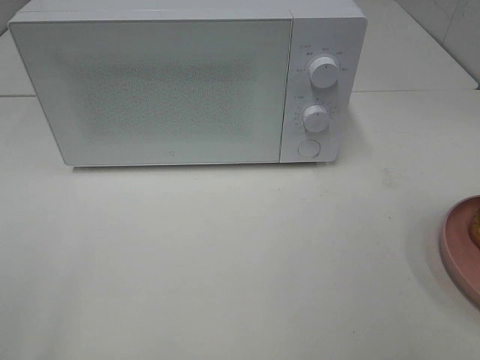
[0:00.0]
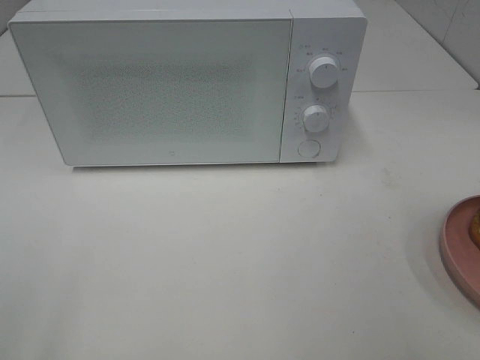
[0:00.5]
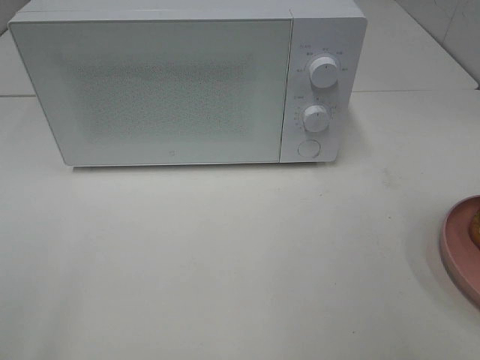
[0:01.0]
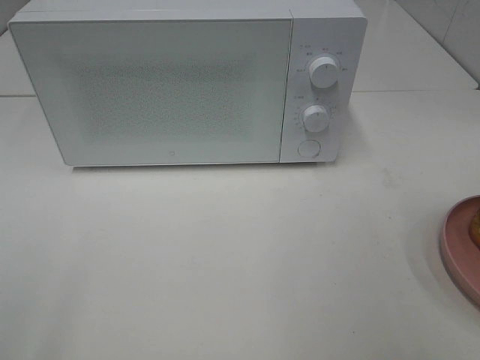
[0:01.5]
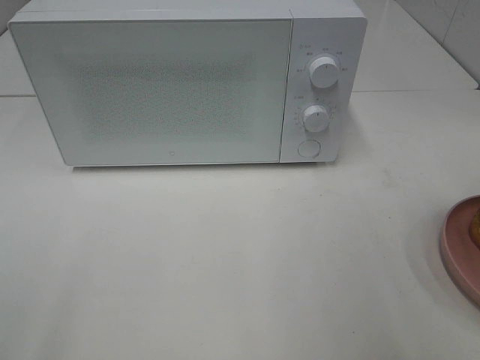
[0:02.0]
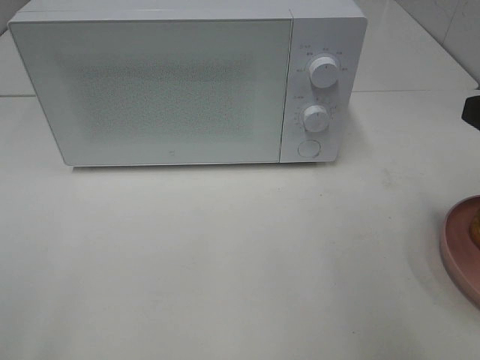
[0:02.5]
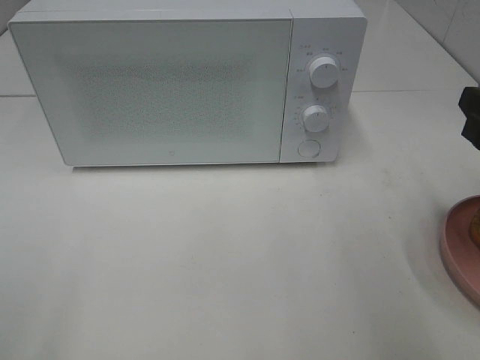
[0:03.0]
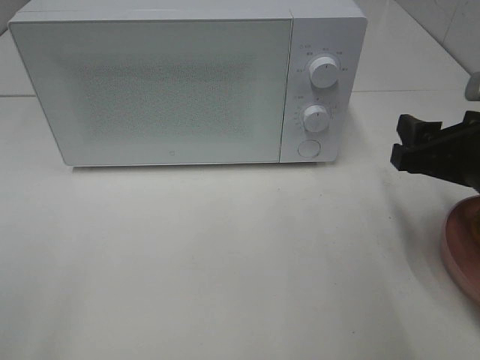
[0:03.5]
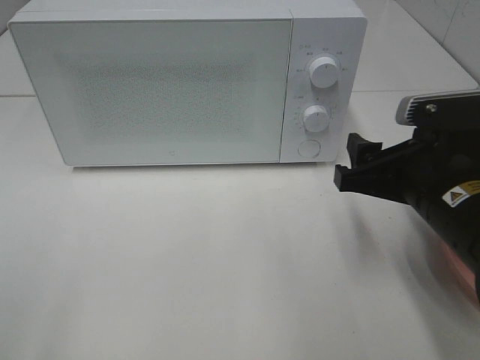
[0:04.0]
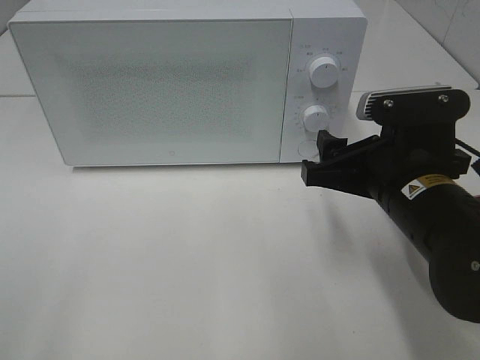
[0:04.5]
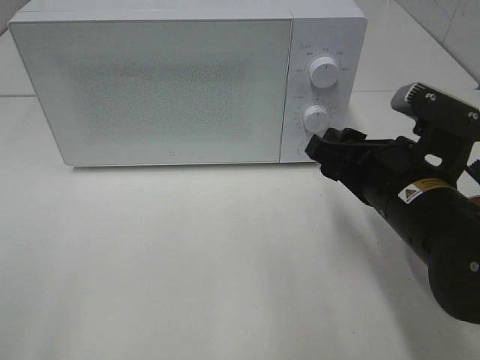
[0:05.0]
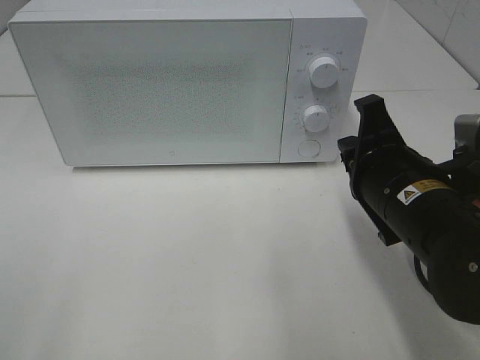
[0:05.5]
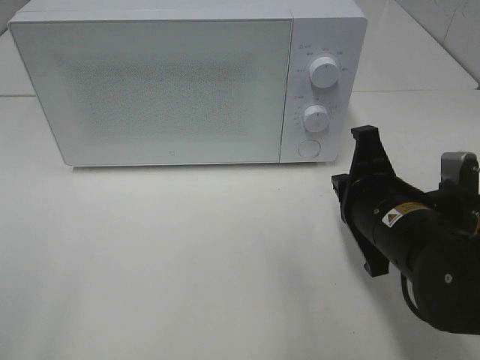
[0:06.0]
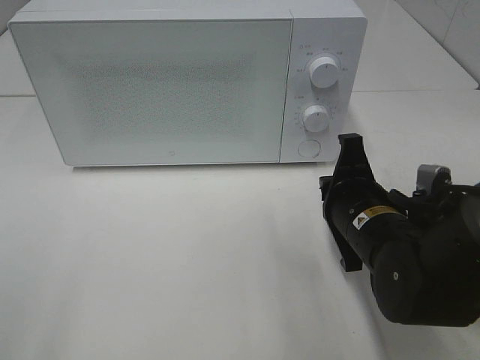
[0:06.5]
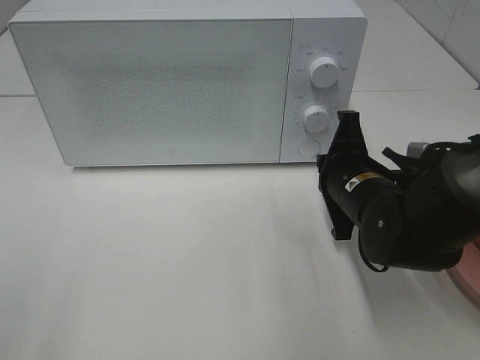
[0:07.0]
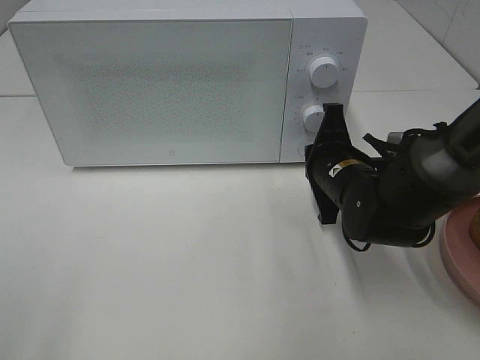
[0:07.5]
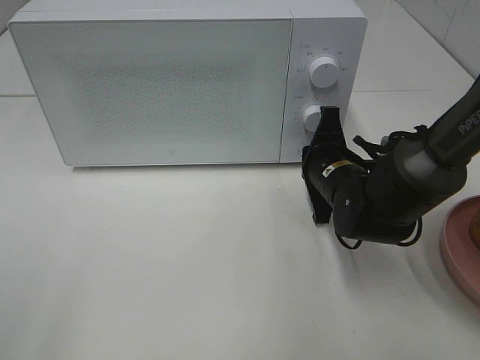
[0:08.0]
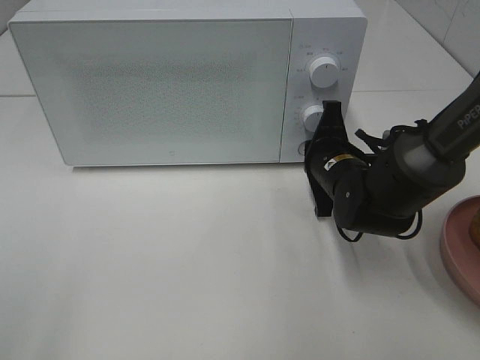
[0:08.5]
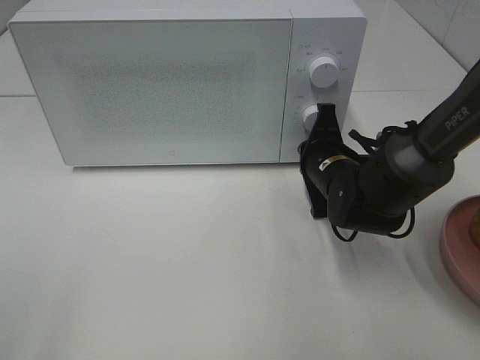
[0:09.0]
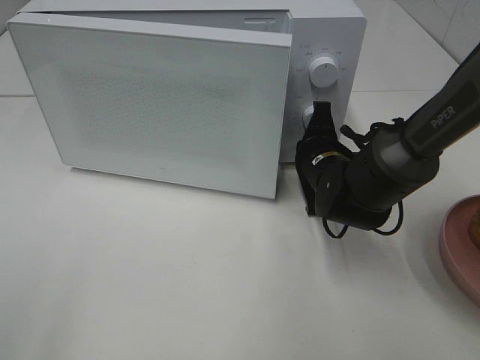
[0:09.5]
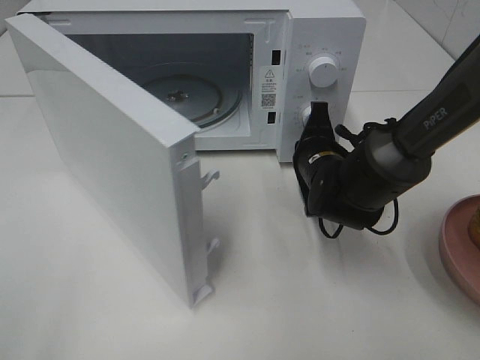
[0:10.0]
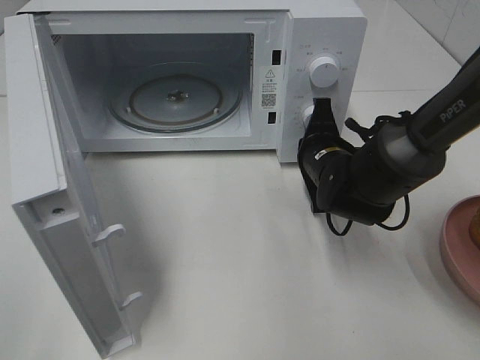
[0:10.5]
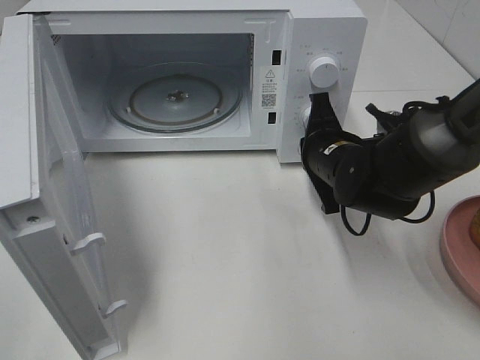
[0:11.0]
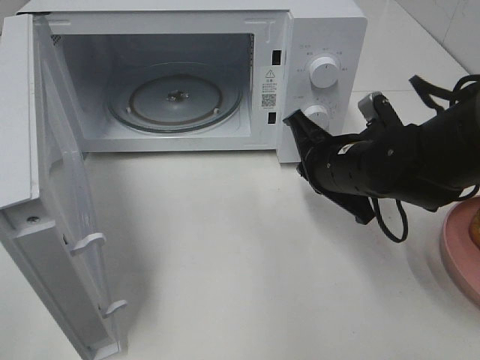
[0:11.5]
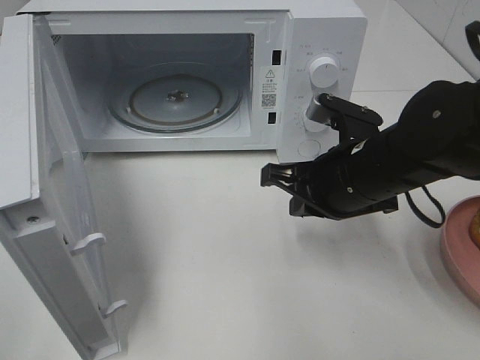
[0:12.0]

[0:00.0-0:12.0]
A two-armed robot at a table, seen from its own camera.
Task of the whole recording: Heat the burger.
Step, 0:00.0 to 0:11.0: Right hand: press the switch.
0:02.0 to 0:04.0: The right gripper heads downward, to the left and forward, covering approximately 20 cm.
0:04.0 to 0:06.0: The right gripper moves about 5 cm, and closes its fingers.
0:06.0 to 0:08.0: The right gripper shifts approximately 10 cm forward and downward.
0:10.0 to 0:12.0: The right gripper goes approximately 10 cm backward and upward.

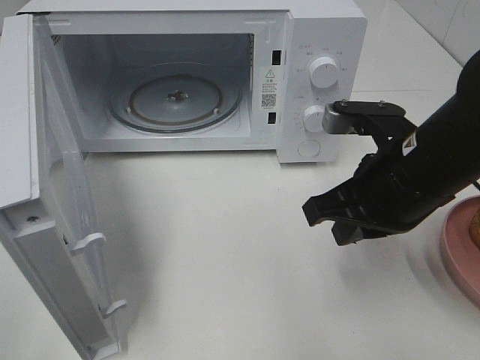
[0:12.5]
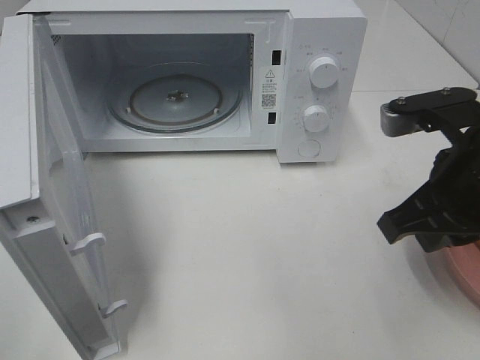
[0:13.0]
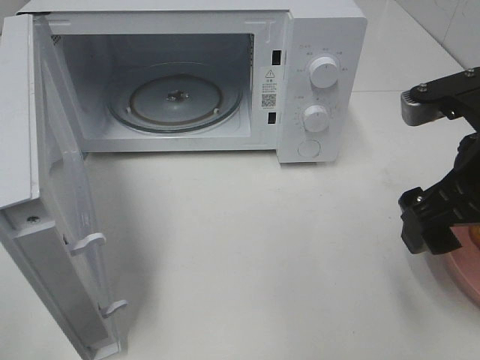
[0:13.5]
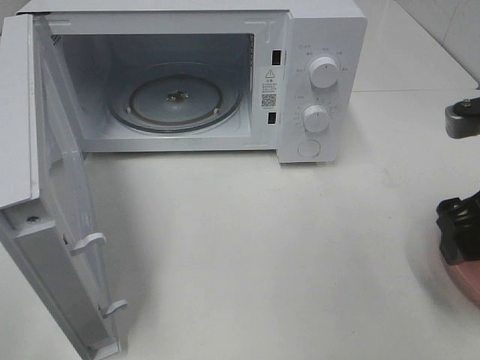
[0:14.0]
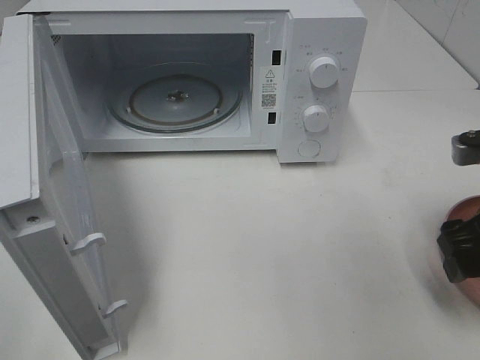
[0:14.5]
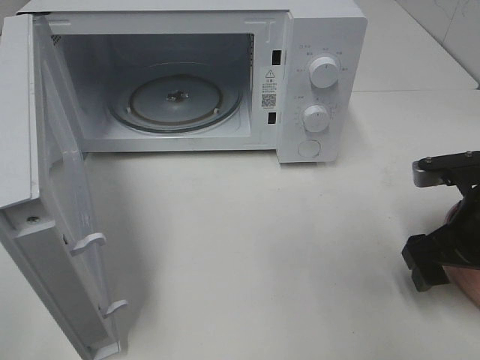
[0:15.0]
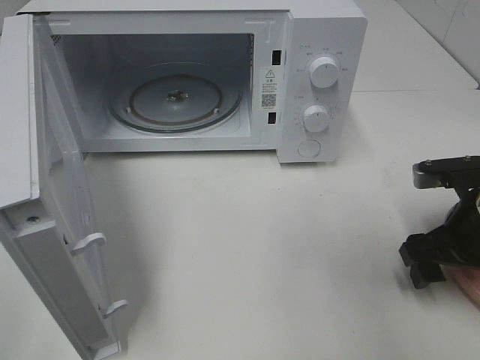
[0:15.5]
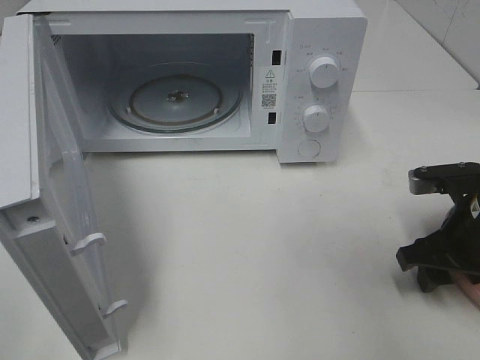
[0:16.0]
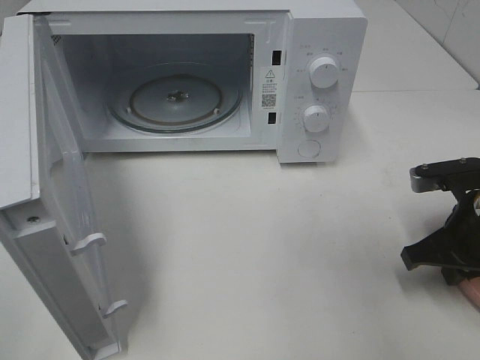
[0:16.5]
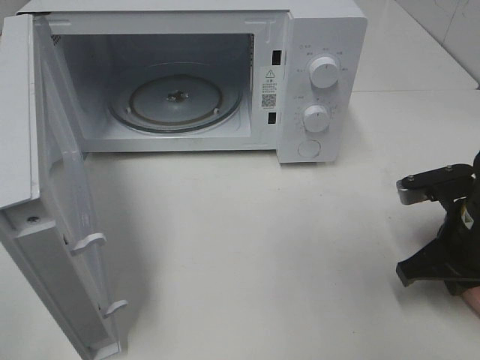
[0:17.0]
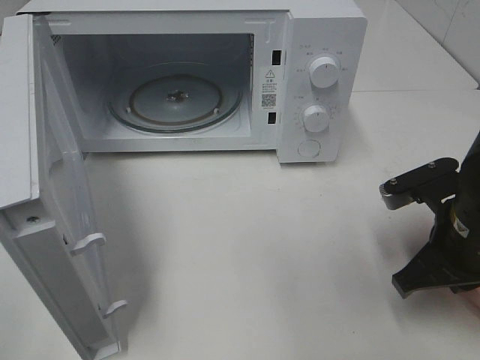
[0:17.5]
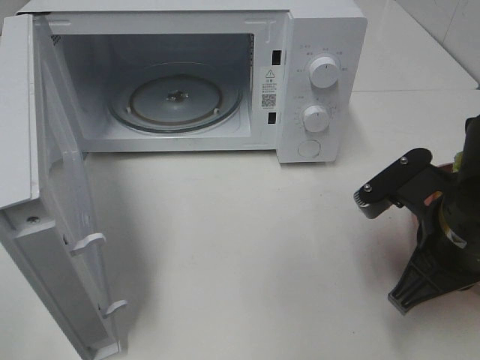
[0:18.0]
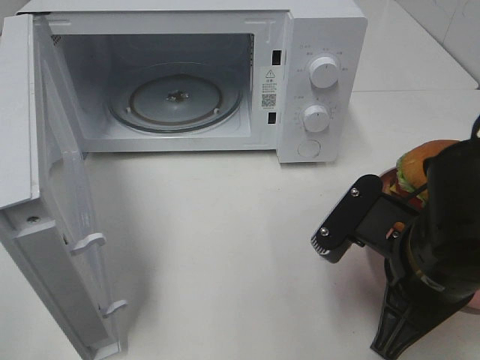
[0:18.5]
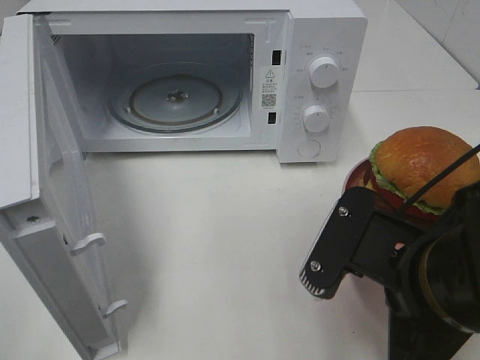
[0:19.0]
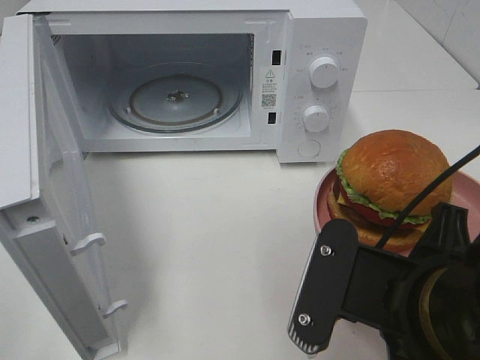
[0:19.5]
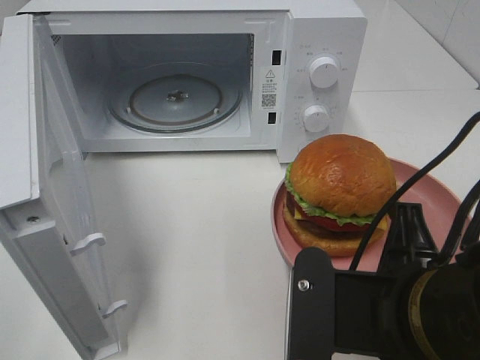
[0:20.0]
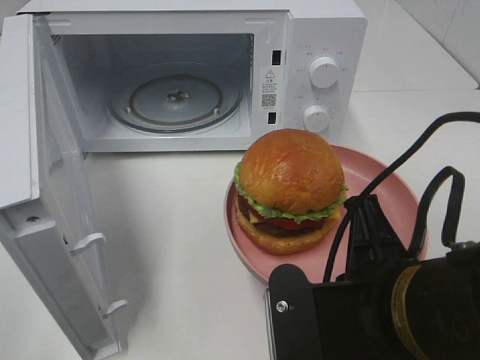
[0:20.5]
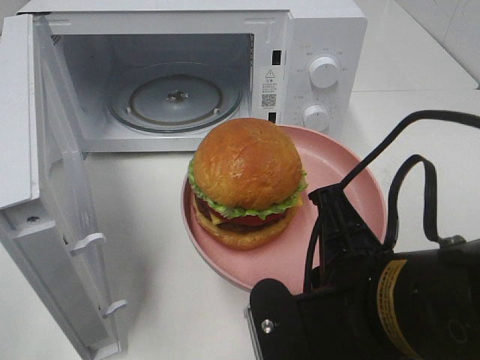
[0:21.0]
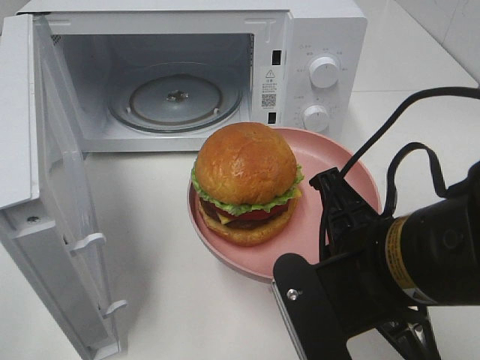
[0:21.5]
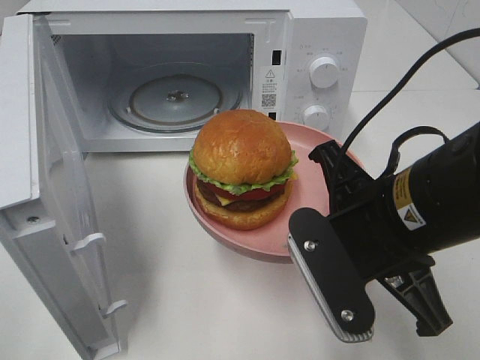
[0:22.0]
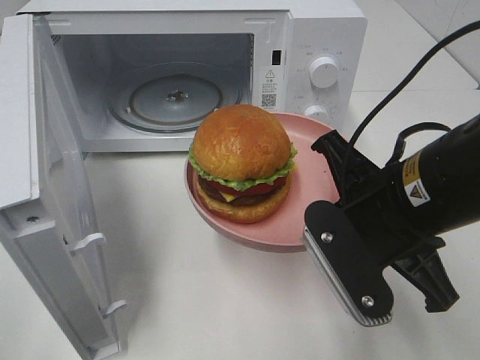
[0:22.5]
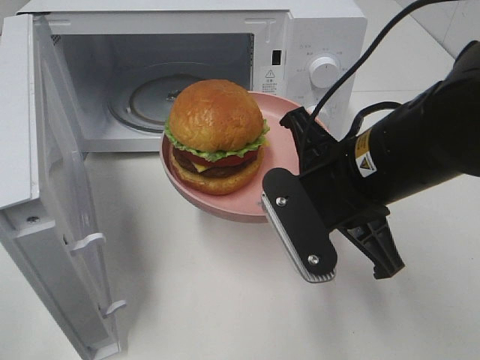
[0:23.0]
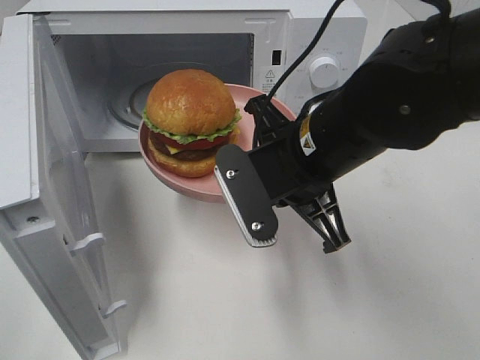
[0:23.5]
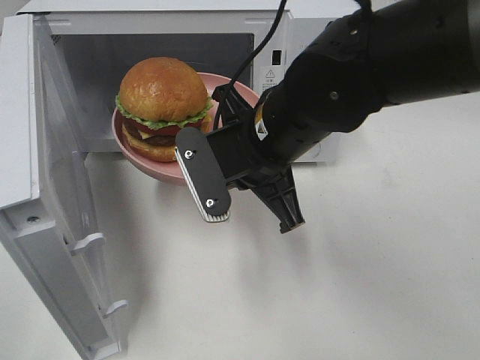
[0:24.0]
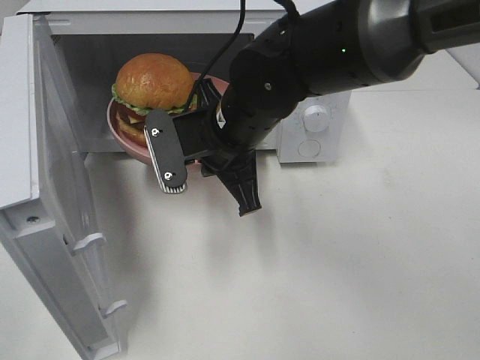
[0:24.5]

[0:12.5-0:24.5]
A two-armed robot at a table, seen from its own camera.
Task of the whole recording: Heat the burger.
Step, 0:12.5 to 0:16.5: Right hand: grab the plate with the hamburger.
0:12.5 to 0:14.5: The right gripper is displaced to the right by approximately 10 cm, and opens.
0:14.5 to 0:16.5: The right gripper heads downward, covering roughly 5 cm, and closes up.
0:16.5 to 0:18.5: The right gripper shifts roughly 15 cm to the left and backward.
0:18.5 to 0:20.5: The right gripper heads backward, covering some 5 cm.
0:20.5 to 0:22.5: The right gripper heads forward, covering about 10 cm.
0:22.5 to 0:24.5: The right gripper moves to the left and forward, about 20 cm.

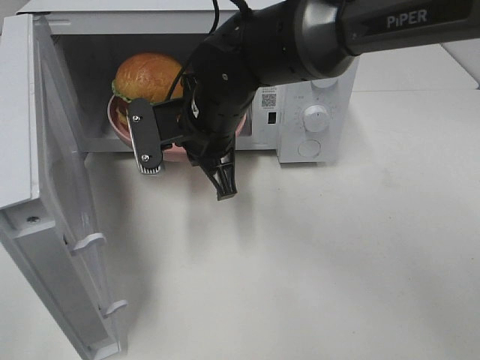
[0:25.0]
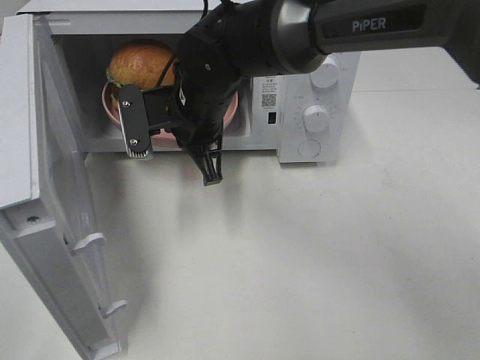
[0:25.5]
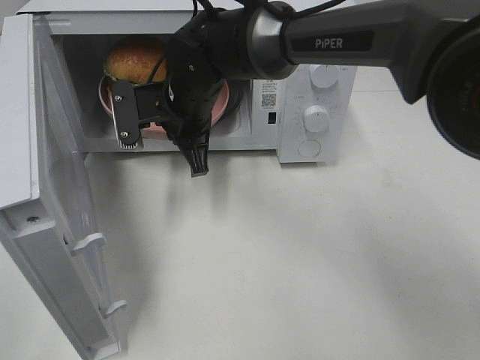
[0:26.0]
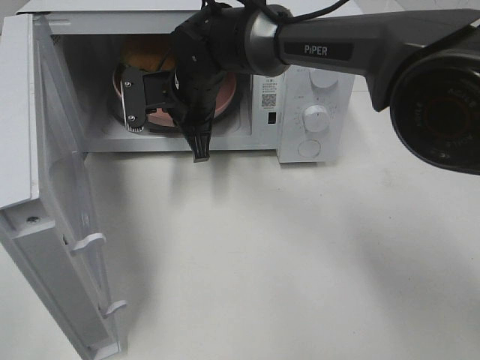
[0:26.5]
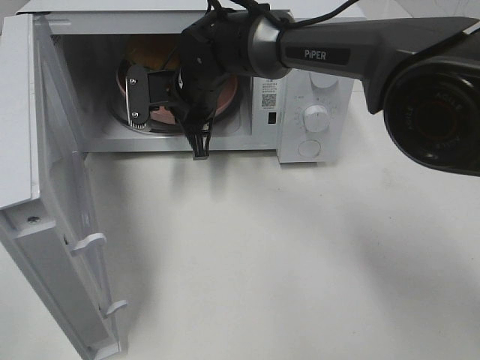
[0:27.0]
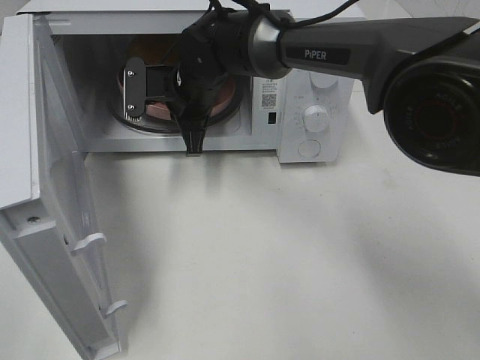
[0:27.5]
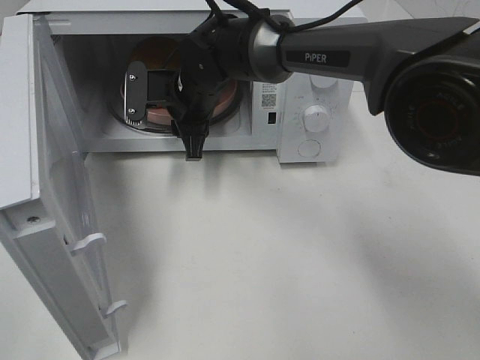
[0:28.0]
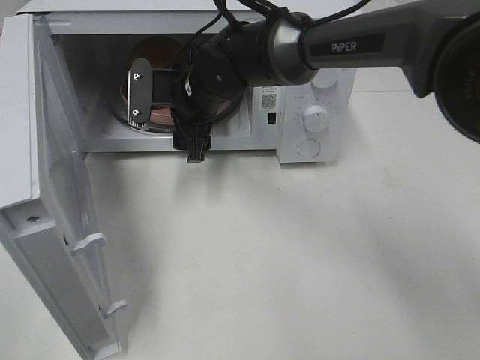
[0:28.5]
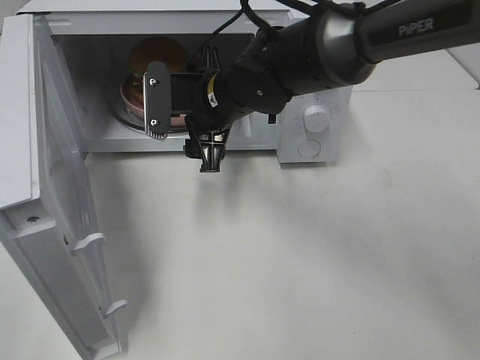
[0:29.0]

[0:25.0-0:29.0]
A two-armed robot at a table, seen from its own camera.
Task of the whole recording: Heat the burger.
Step, 0:25.0 to 0:27.5: Right hand: place the plate in the microwave.
0:25.0 to 0:27.0: The right gripper moves forward, some 10 cm.
0:27.0 to 0:29.0: The right gripper goes some 5 cm backward, and opens its fingers.
